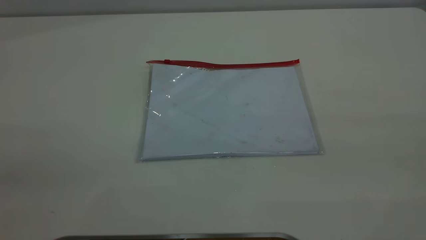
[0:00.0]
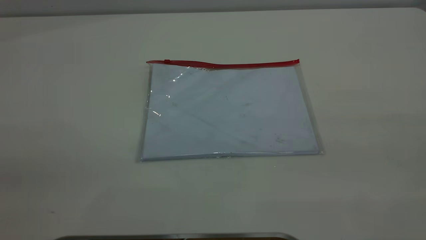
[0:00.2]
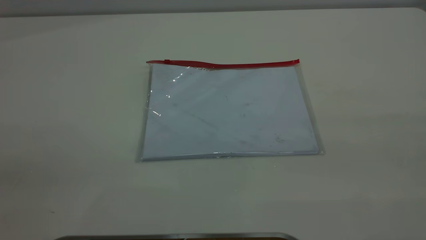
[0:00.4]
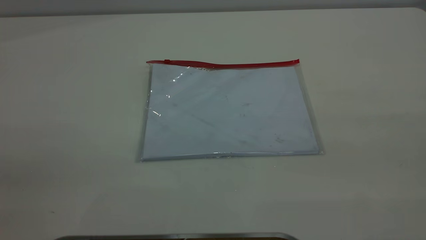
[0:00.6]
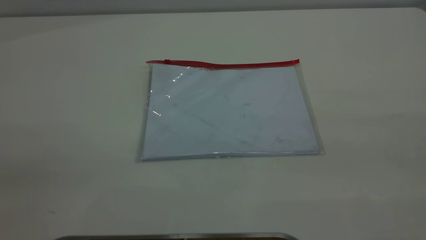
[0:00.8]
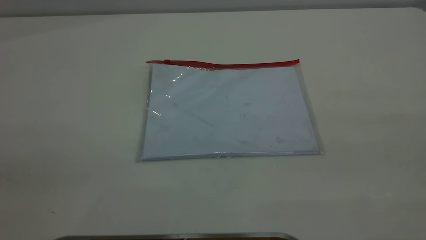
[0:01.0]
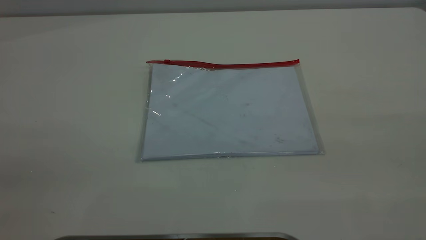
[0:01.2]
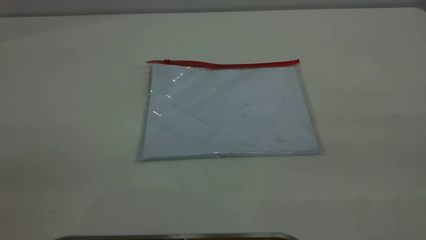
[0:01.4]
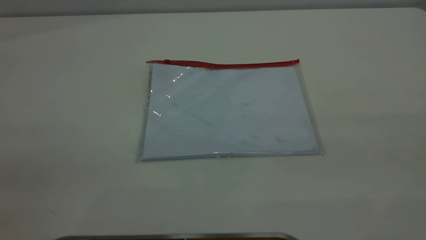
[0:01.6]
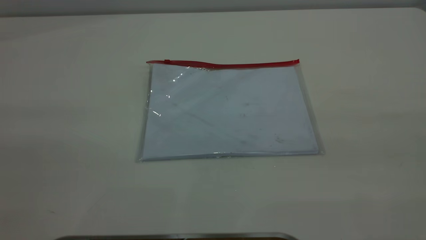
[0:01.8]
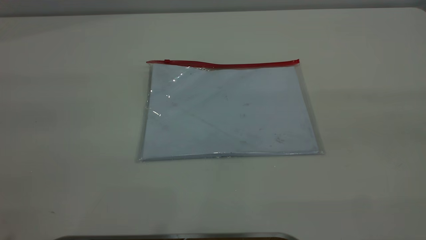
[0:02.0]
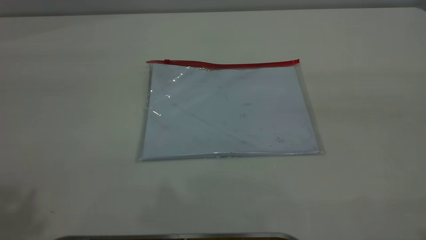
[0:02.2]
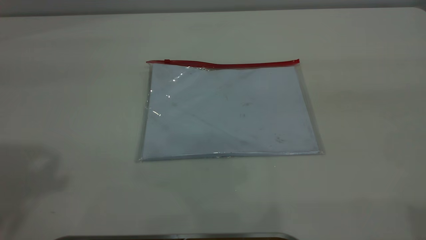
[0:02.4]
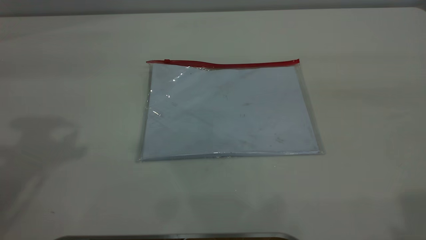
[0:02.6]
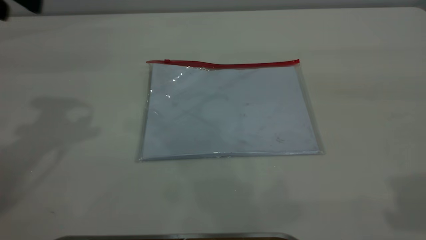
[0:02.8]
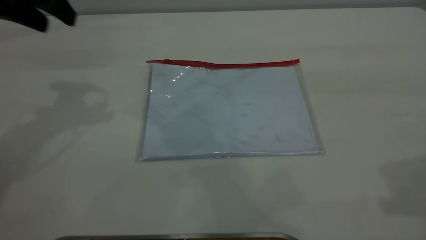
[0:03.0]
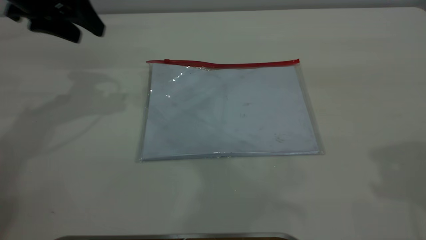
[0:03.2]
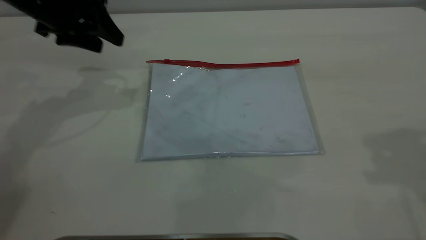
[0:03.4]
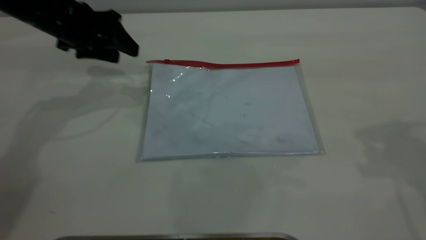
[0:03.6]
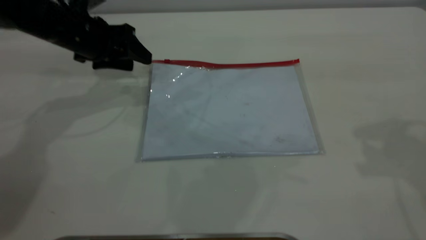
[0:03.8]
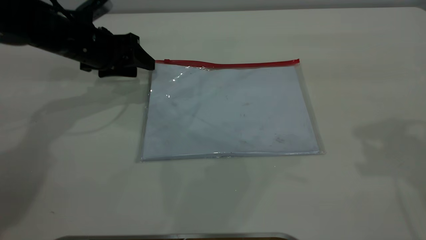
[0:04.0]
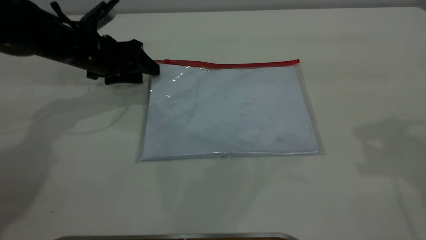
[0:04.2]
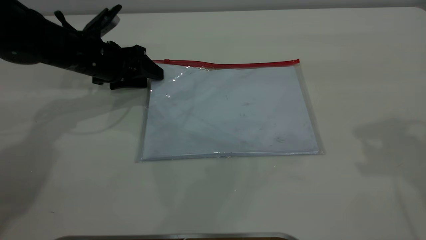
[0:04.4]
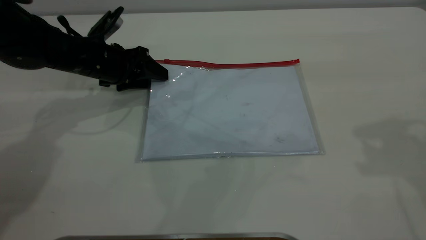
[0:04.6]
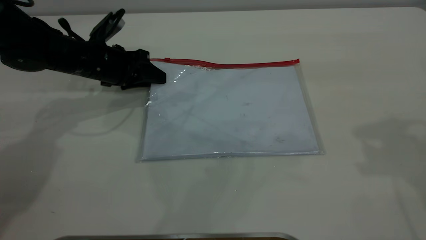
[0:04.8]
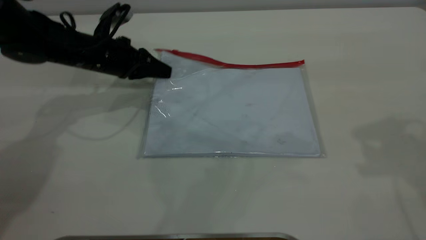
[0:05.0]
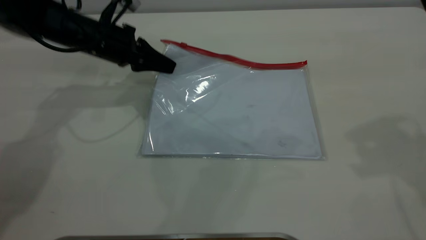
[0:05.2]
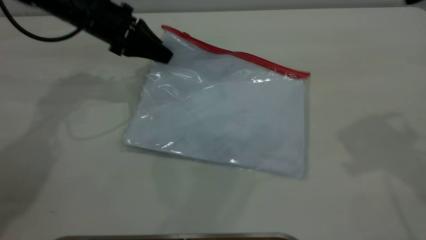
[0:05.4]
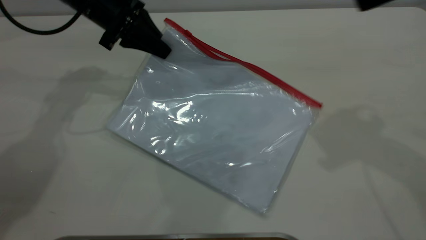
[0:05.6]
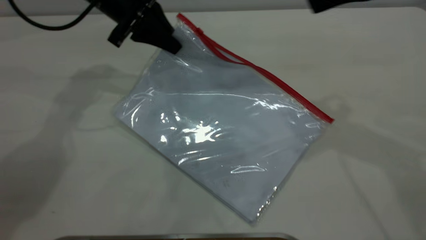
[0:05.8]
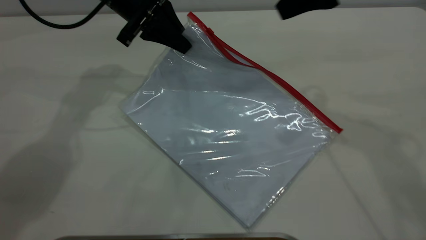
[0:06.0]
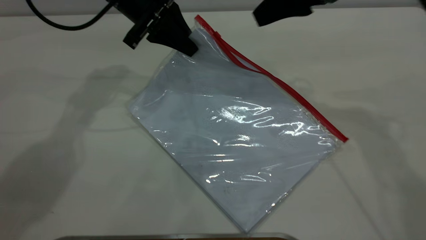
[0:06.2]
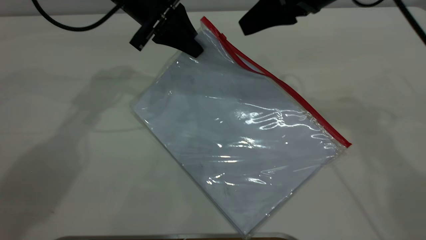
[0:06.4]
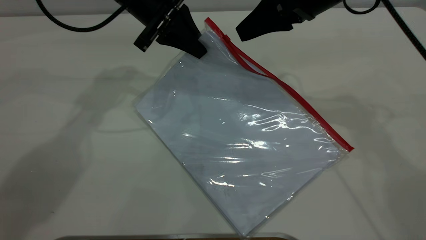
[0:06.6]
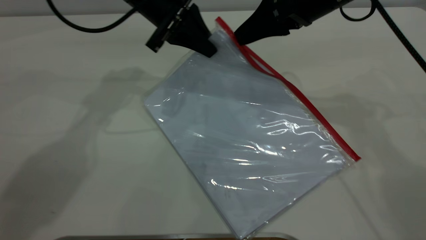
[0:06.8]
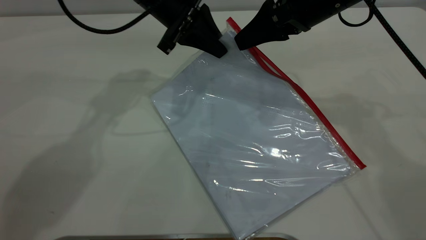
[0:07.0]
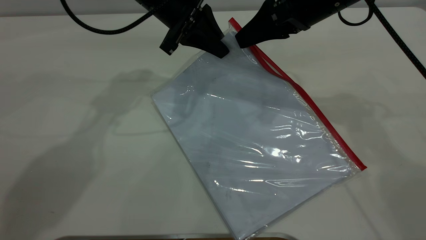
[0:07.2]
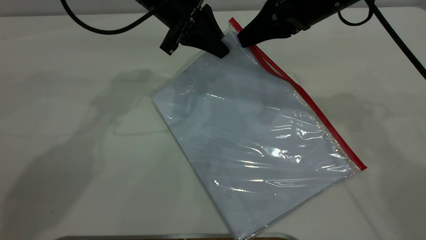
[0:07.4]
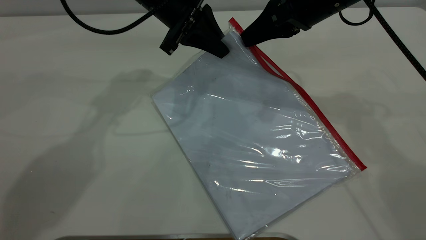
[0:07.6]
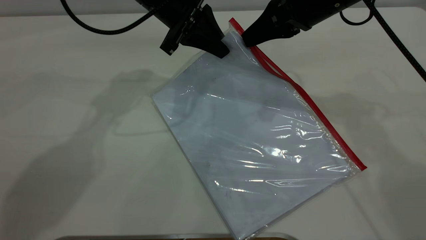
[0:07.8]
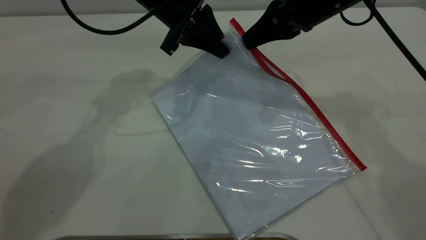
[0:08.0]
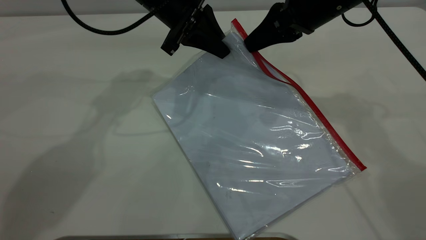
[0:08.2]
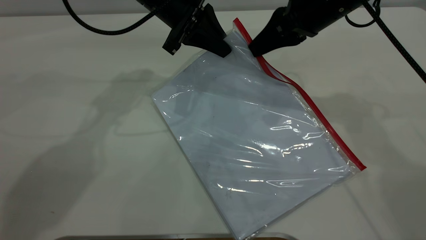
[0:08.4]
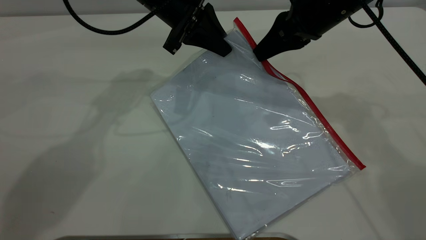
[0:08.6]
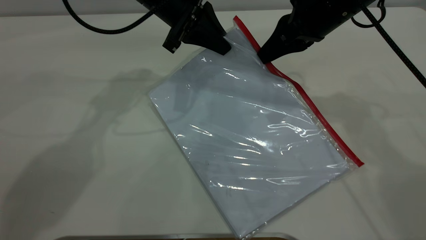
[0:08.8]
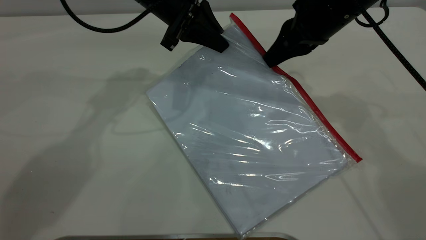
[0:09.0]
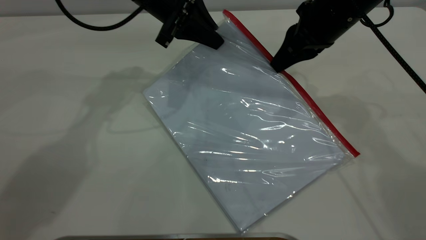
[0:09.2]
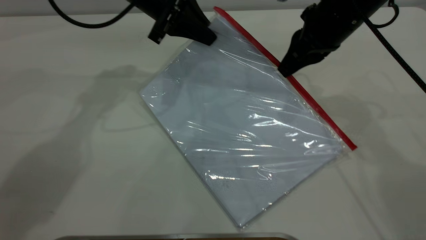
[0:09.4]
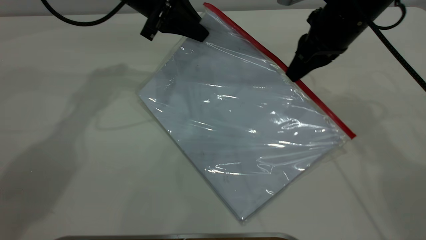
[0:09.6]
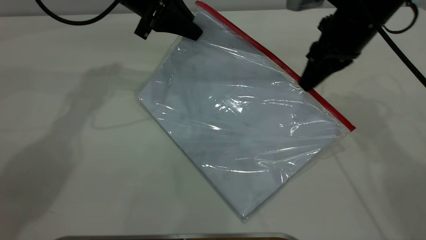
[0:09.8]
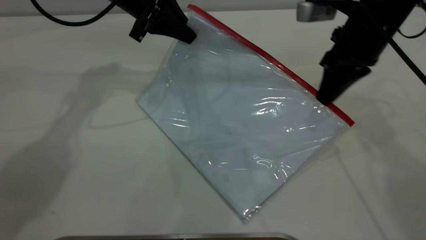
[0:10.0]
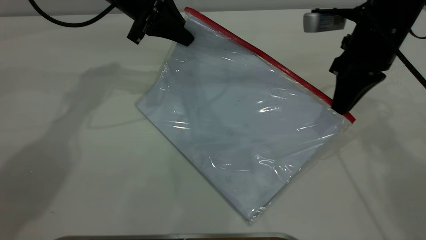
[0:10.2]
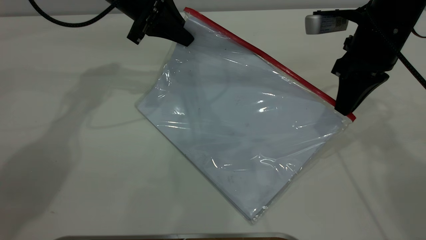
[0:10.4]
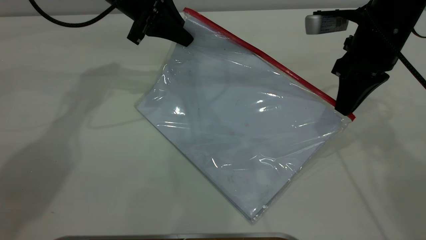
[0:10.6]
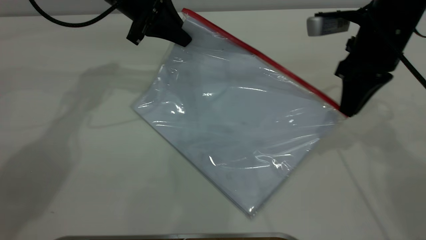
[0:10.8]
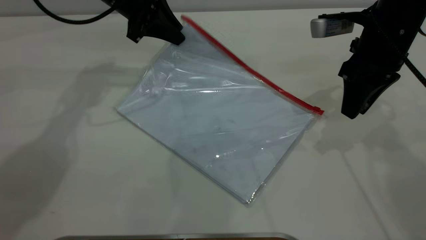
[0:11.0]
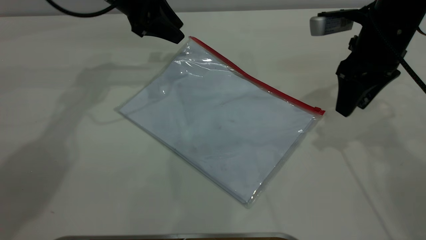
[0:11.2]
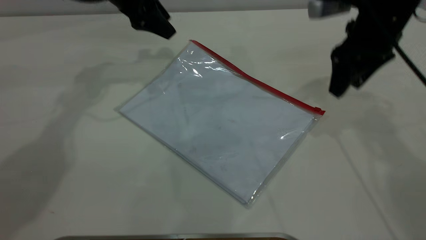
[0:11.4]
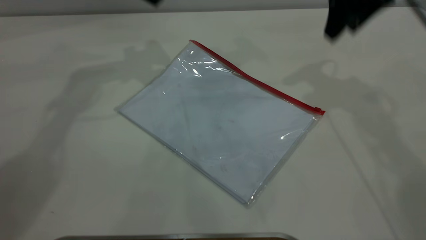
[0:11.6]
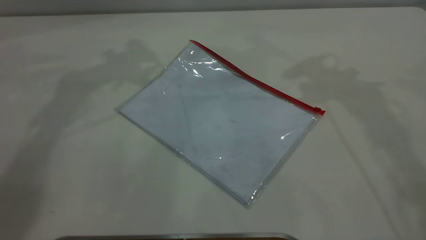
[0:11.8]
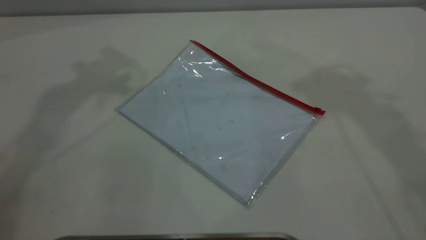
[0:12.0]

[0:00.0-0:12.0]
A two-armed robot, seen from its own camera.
Step, 0:00.0 to 0:05.0: Pick up the transparent plastic bag with the left gripper.
Step, 0:05.4 to 0:10.8: Pulling up the zipper on the transparent plastic bag with the right gripper to close it.
Step, 0:11.2 to 0:11.4: Place the transparent plastic bag.
0:00.0 to 0:01.6: Both grippers stay about where they are.
0:01.6 to 0:03.0: The left gripper goes about 40 cm forward.
0:03.0 to 0:04.4: The right gripper is displaced forward by roughly 5 cm. The left gripper is displaced downward by some 20 cm.
0:04.4 to 0:06.0: The right gripper moves to the left, forward and downward, about 15 cm. Meanwhile the left gripper is displaced upward and to the right by roughly 15 cm, and closes its fingers.
0:06.0 to 0:07.6: The left gripper goes approximately 5 cm to the right; the right gripper travels downward by approximately 5 cm, and closes.
0:07.6 to 0:09.0: The grippers move only a little.
0:09.0 to 0:10.4: The right gripper shifts by approximately 5 cm. The left gripper moves to the left, some 5 cm.
0:10.4 to 0:12.0: The grippers both shift upward by roughly 30 cm. The left gripper opens up. The right gripper opens.
